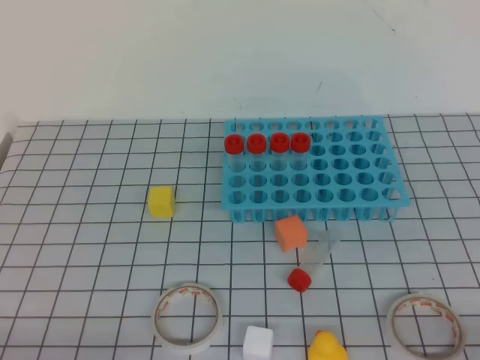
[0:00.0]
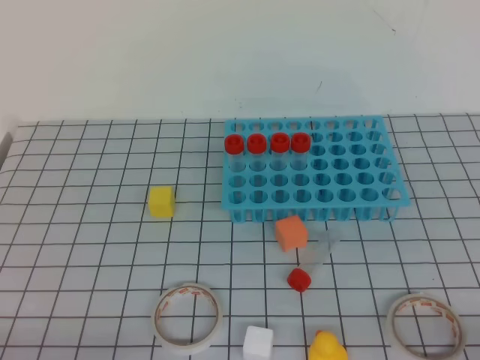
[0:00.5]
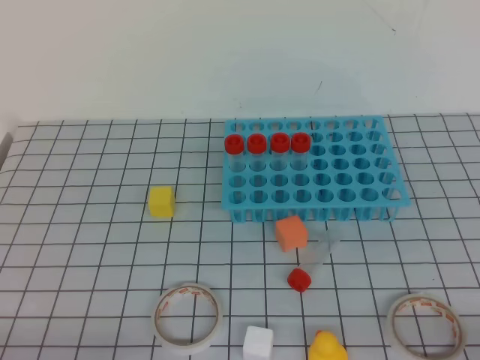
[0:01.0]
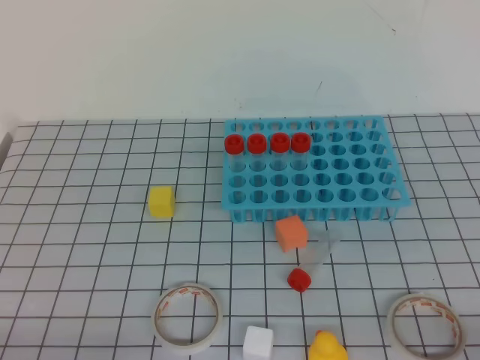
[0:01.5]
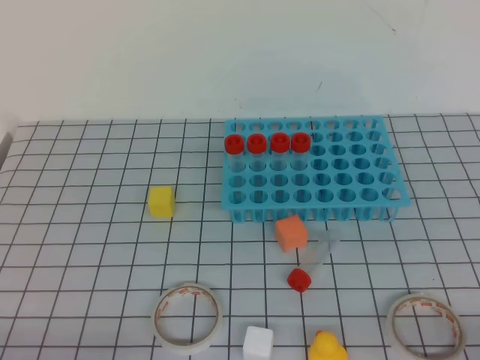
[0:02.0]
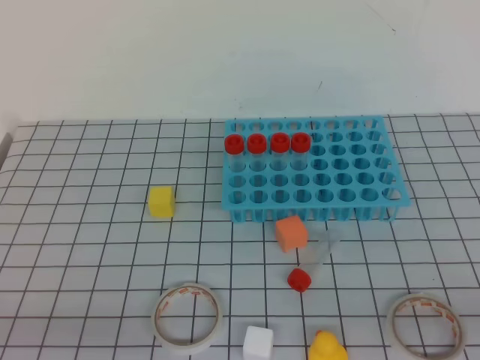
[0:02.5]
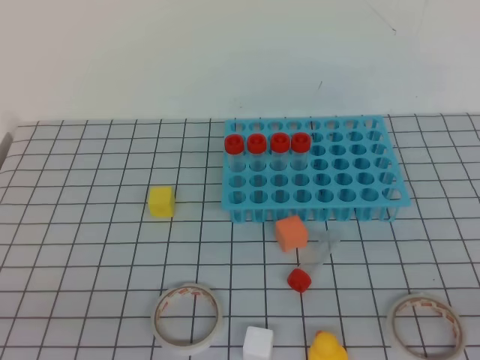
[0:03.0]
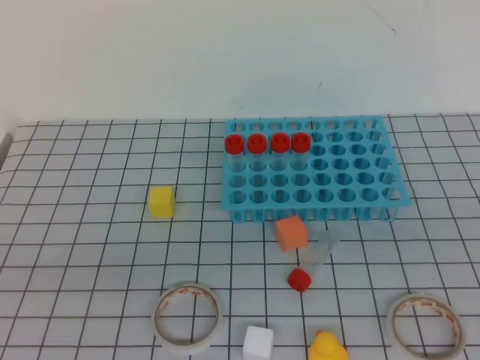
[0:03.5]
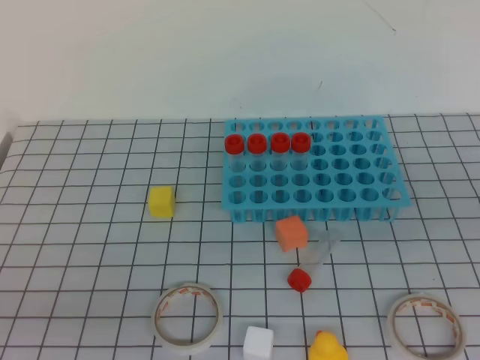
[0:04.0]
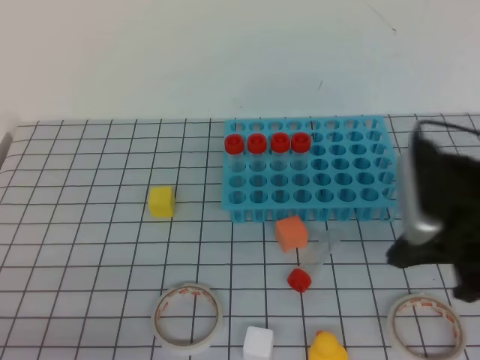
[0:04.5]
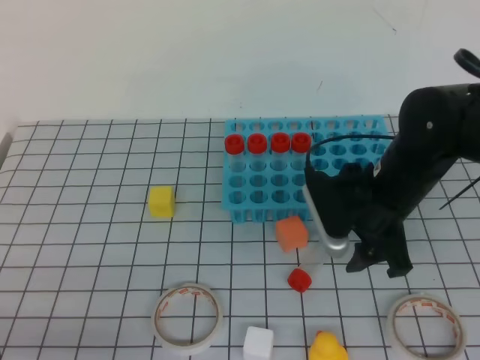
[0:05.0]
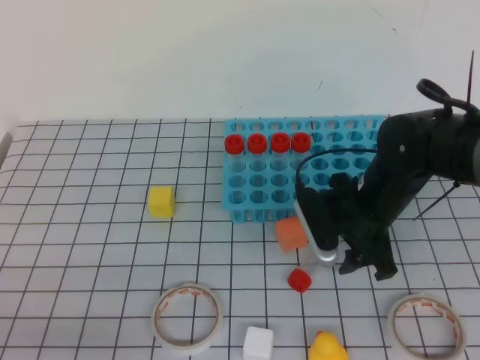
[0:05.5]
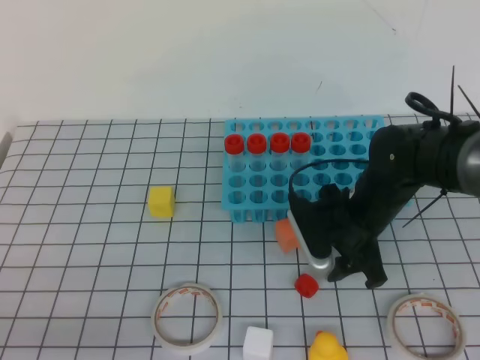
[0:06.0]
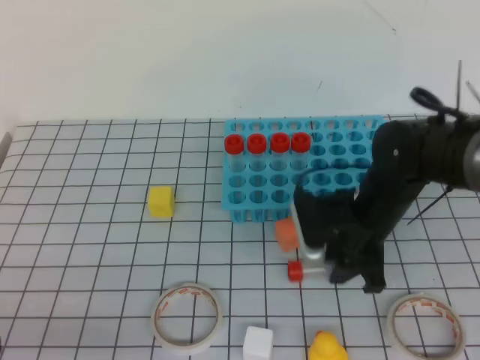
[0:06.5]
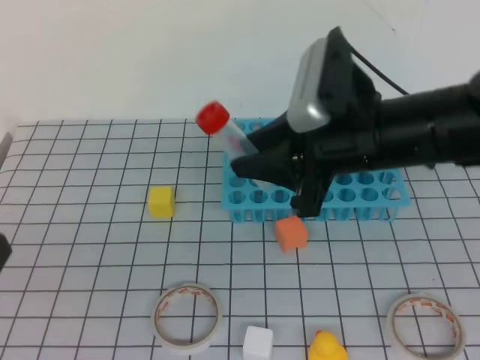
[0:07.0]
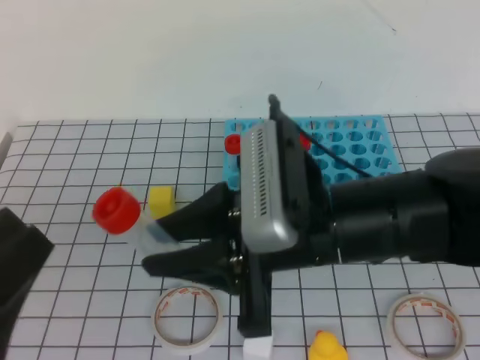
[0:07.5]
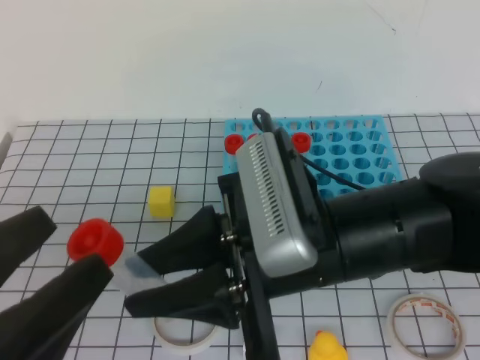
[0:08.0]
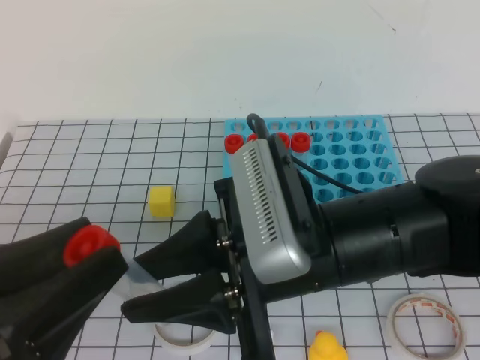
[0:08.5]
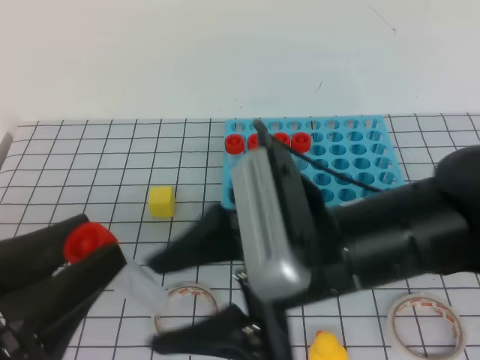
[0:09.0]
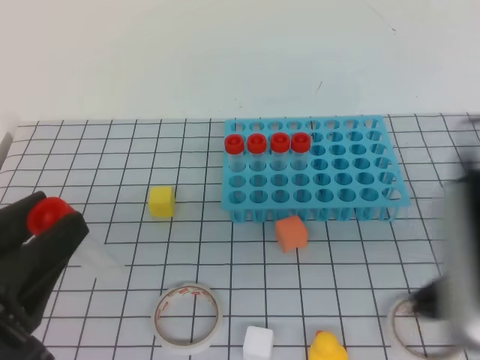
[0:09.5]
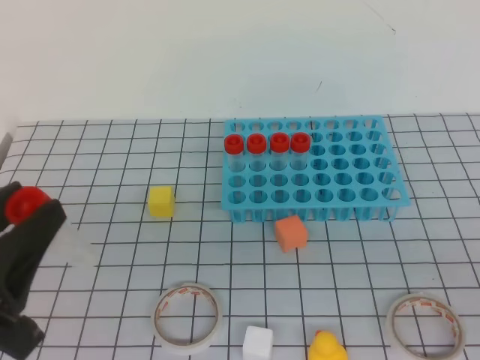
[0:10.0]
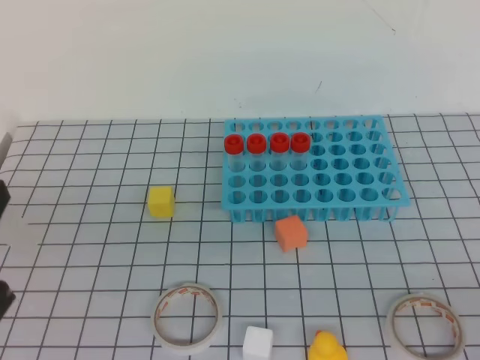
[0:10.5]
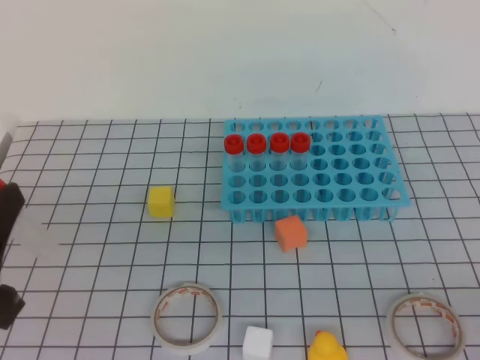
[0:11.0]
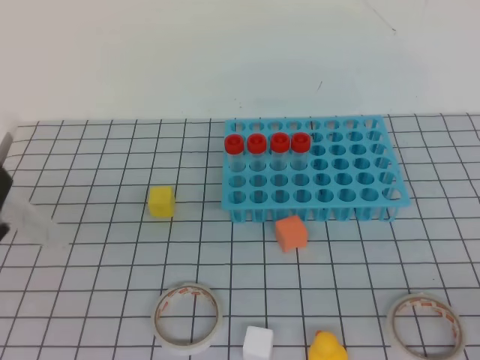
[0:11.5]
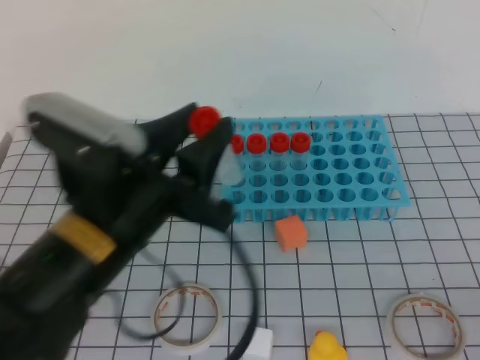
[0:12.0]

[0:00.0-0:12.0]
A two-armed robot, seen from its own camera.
0:00.0 to 0:02.0: Both grippers stay about where they are.
0:04.0 to 0:06.0: The left gripper ends up approximately 5 cm from where it was. The right gripper shifts approximately 35 cm forward, downward and to the left, and opens up.
0:06.0 to 0:08.0: The right gripper shifts some 25 cm backward, upward and to the left, and closes its fingers, while the left gripper is displaced upward by roughly 10 cm, and opens.
0:08.0 to 0:10.0: The left gripper closes its fingers. The right gripper travels to the right and backward by some 30 cm, and closes its fingers.
0:10.0 to 0:12.0: The left gripper heads forward and to the right, covering about 15 cm; the right gripper is displaced downward by roughly 5 cm.

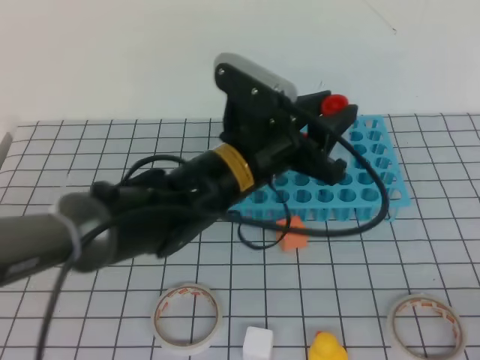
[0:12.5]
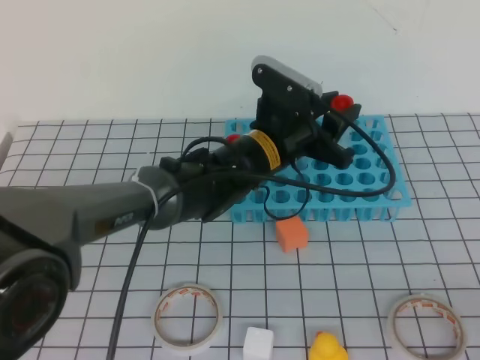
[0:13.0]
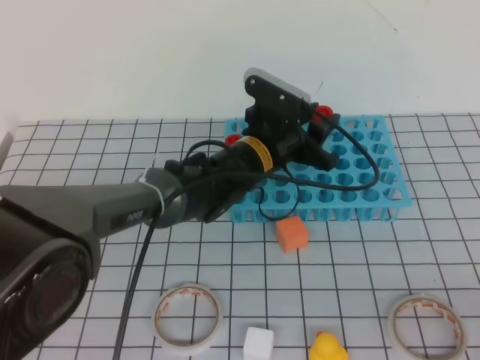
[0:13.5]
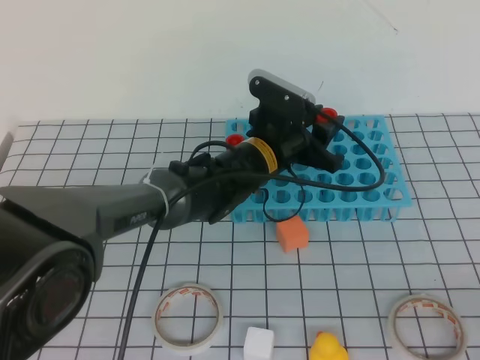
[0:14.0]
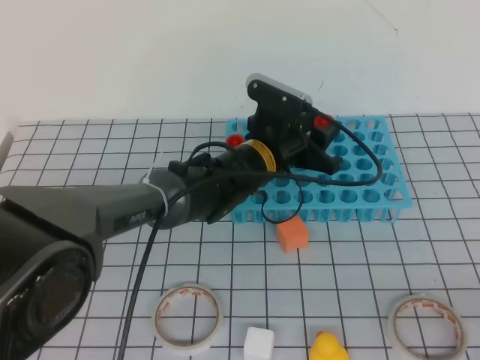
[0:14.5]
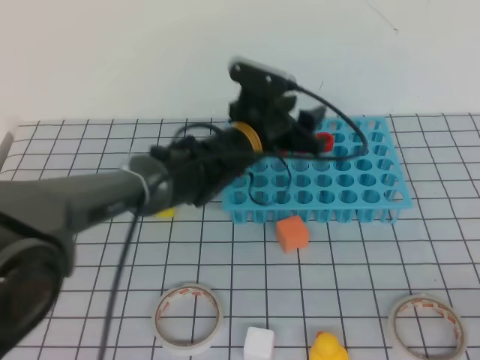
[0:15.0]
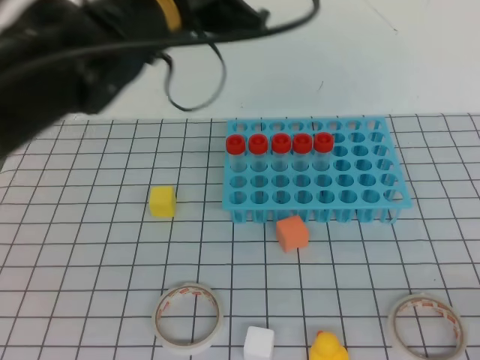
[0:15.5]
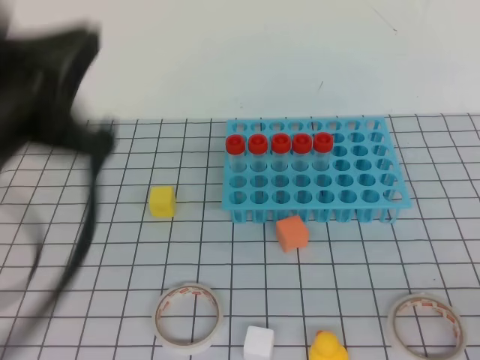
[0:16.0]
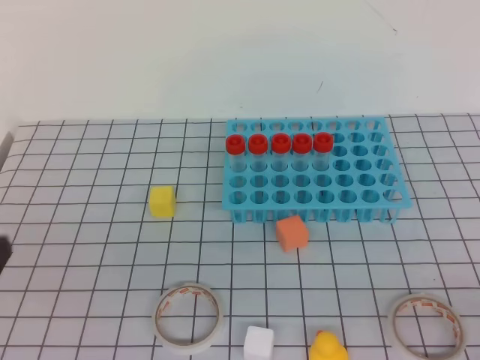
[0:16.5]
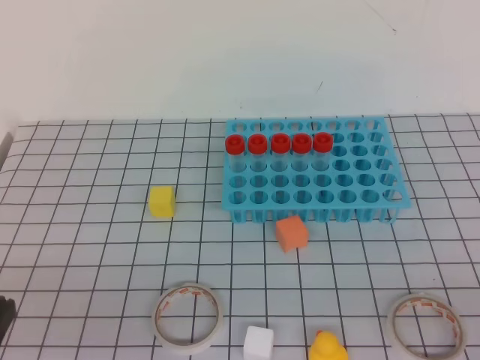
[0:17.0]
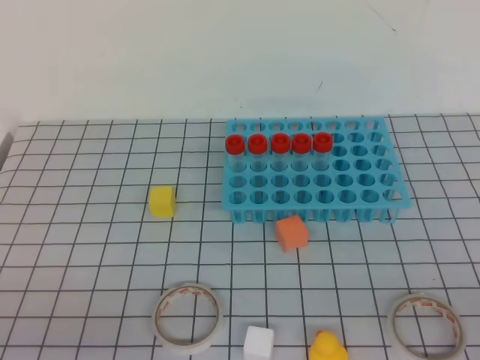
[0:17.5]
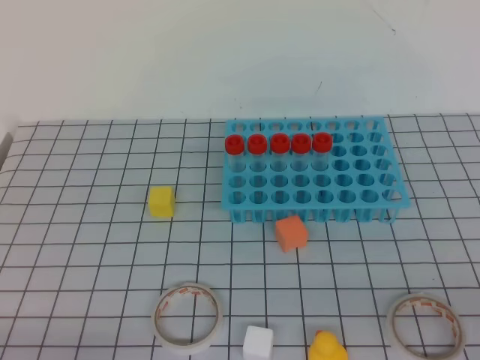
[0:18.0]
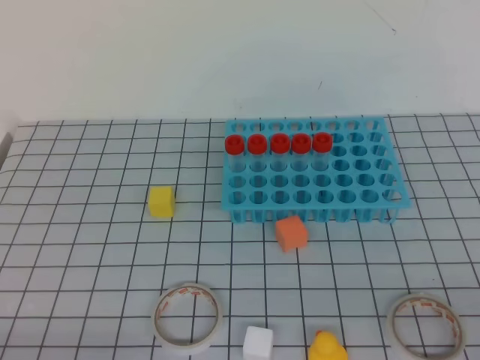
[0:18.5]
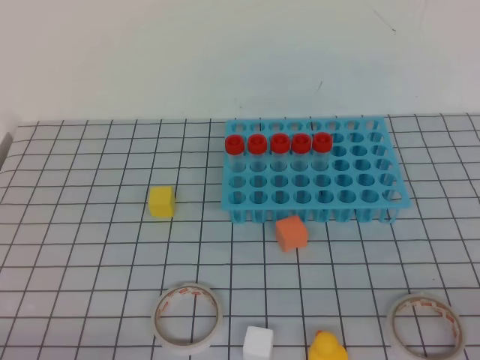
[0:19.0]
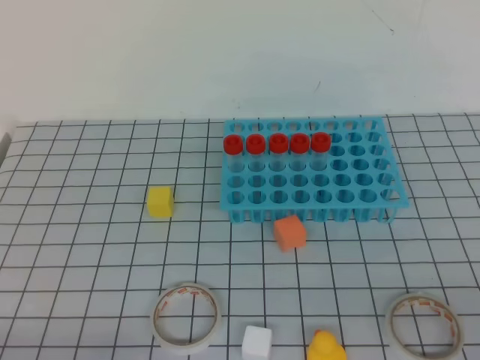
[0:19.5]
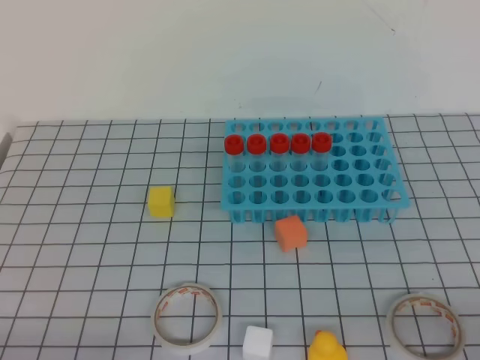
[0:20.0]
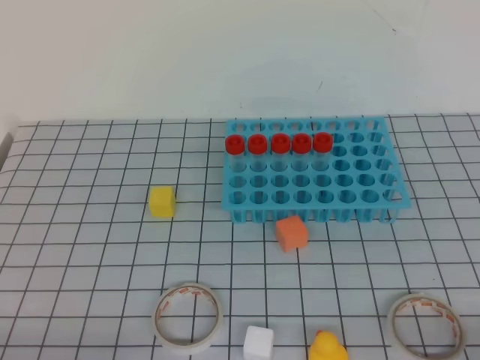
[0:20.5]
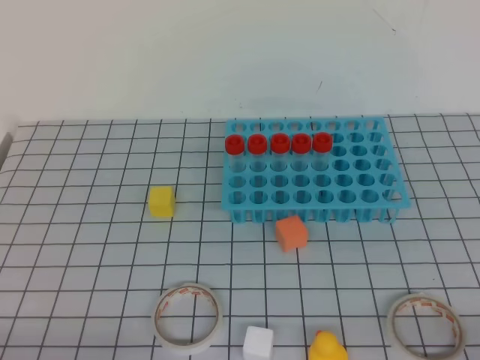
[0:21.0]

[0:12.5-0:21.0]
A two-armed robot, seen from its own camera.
0:12.5 to 0:14.5: The left gripper shifts approximately 15 cm forward and downward.
0:14.5 to 0:16.5: The left gripper moves backward and to the left, approximately 40 cm, and closes.
0:16.5 to 0:19.0: The left gripper travels downward by some 15 cm.

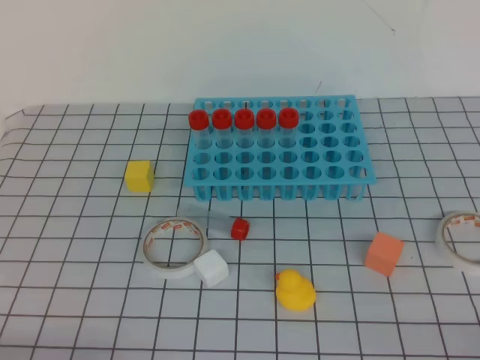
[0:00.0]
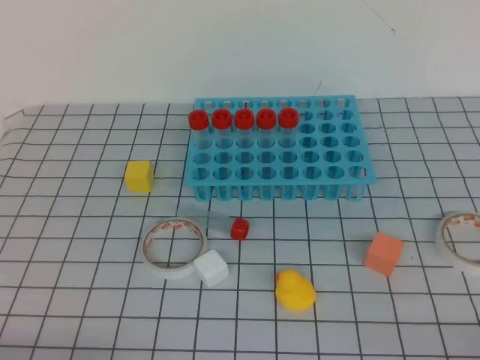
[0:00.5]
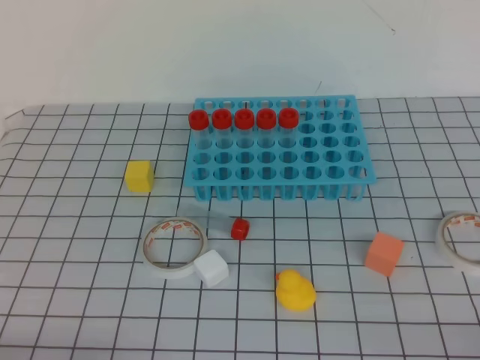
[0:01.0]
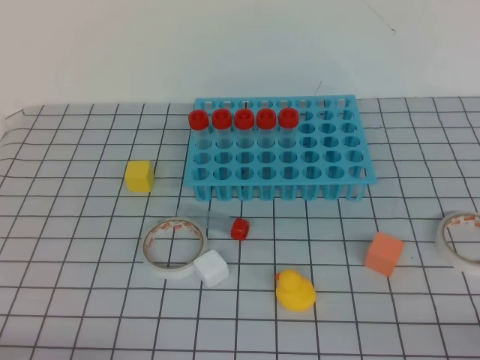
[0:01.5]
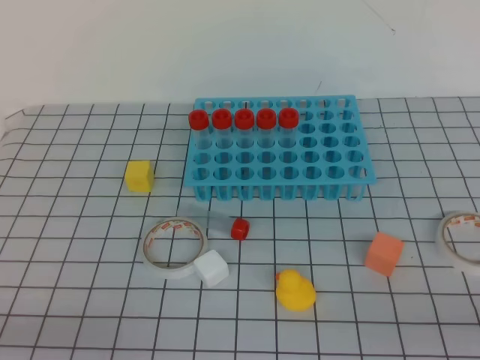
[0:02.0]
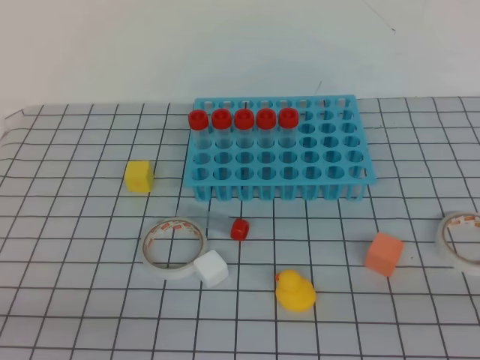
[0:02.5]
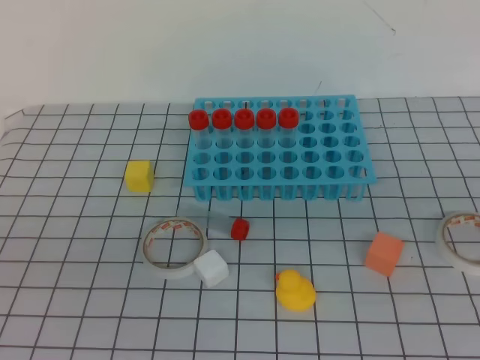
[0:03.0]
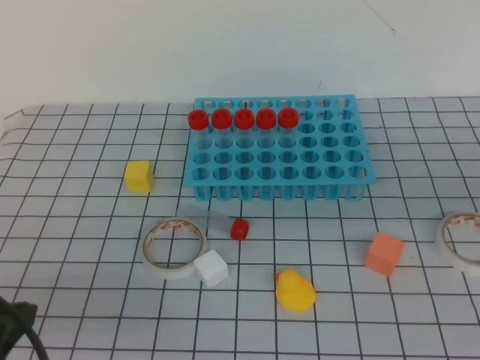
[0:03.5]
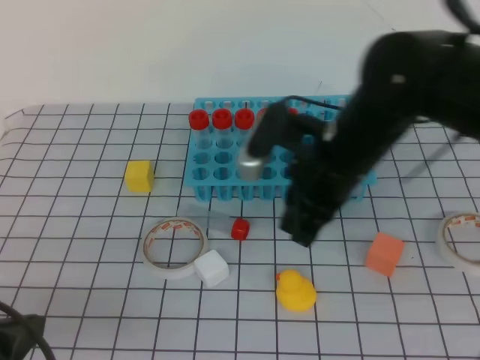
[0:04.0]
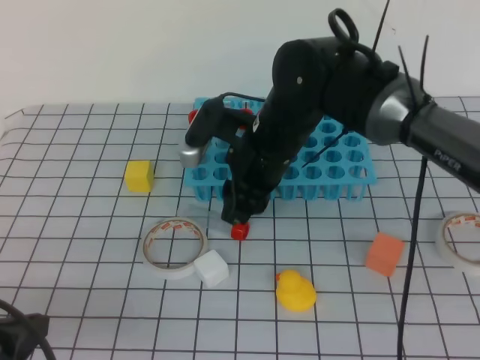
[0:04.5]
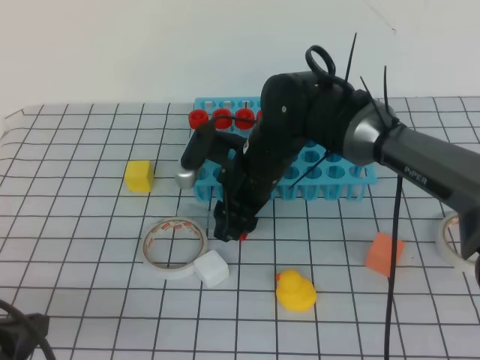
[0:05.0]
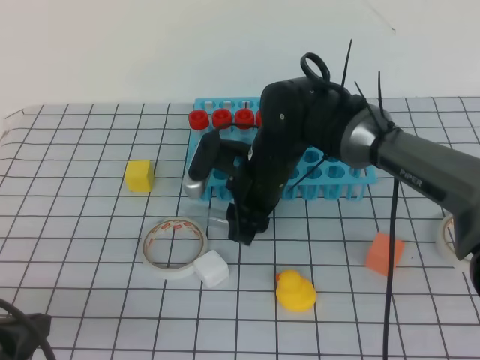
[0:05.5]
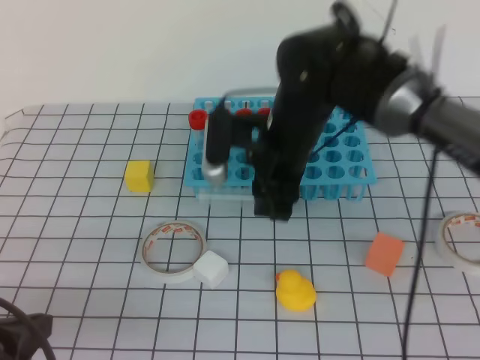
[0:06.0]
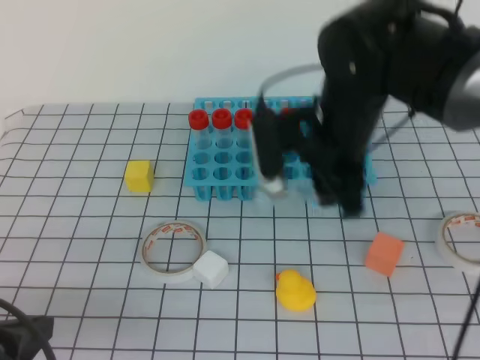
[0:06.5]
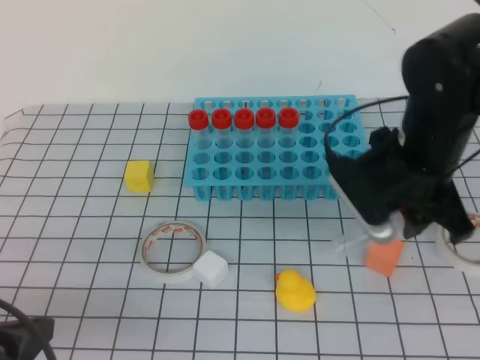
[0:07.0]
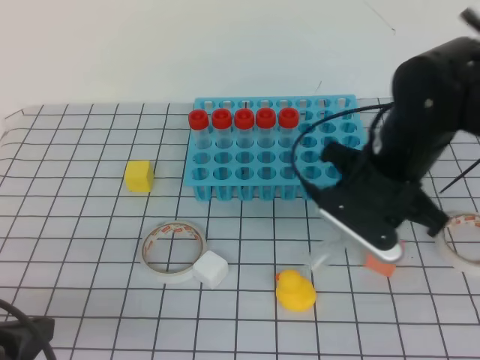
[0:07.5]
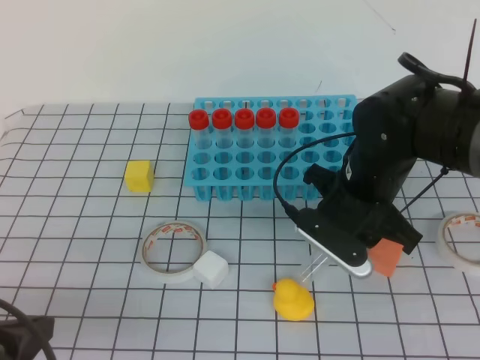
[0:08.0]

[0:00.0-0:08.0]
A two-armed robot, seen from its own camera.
0:02.0 to 0:04.0: The left gripper is displaced forward by about 5 cm, and moves about 10 cm upward and comes back. Meanwhile the right gripper moves forward and to the left, some 35 cm.
0:04.0 to 0:06.0: The right gripper travels to the left and forward by some 10 cm, and opens its fingers.
0:06.0 to 0:08.0: The right gripper moves to the right, some 10 cm.
